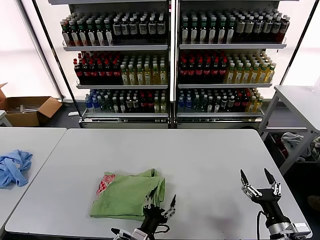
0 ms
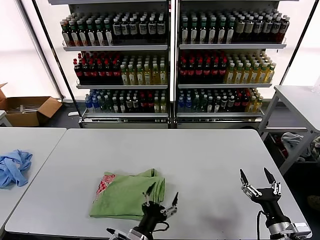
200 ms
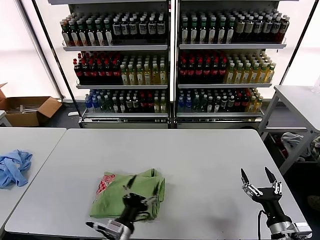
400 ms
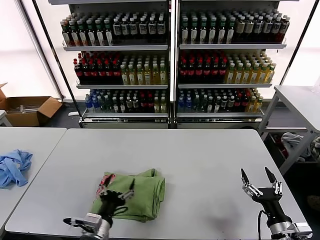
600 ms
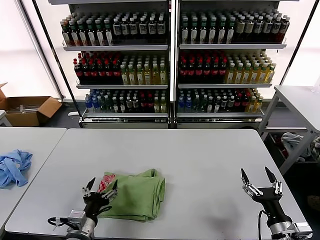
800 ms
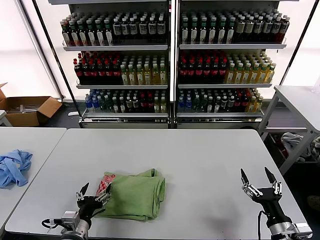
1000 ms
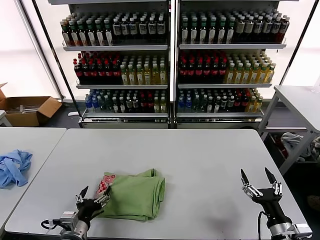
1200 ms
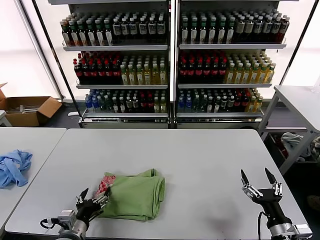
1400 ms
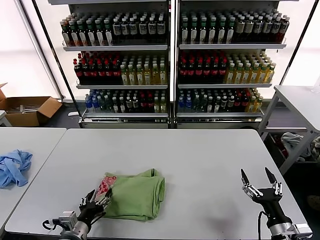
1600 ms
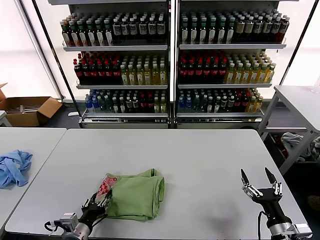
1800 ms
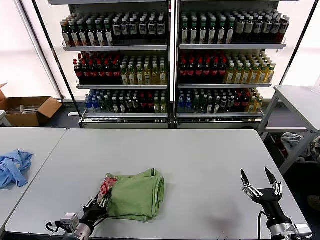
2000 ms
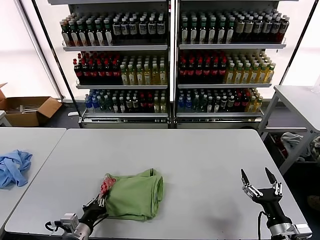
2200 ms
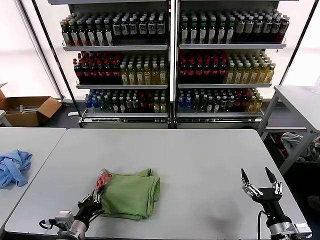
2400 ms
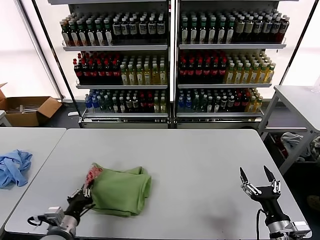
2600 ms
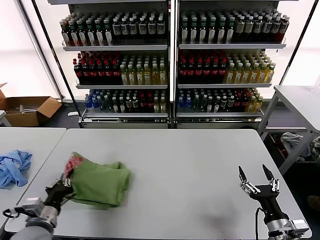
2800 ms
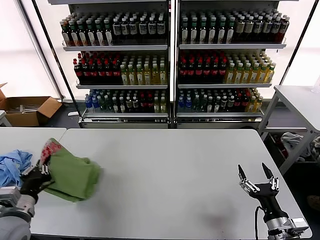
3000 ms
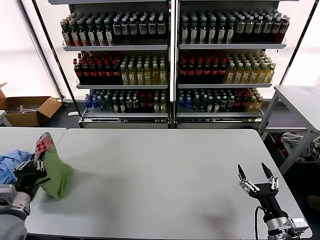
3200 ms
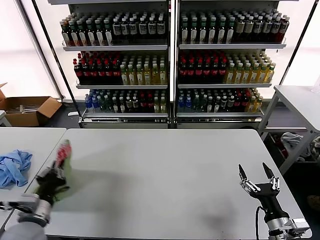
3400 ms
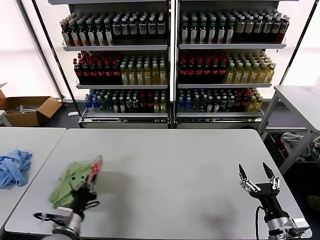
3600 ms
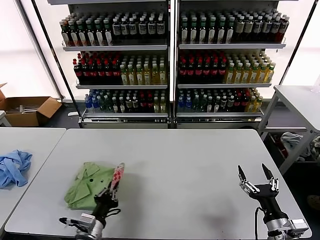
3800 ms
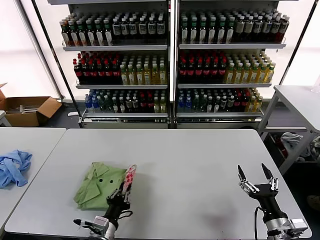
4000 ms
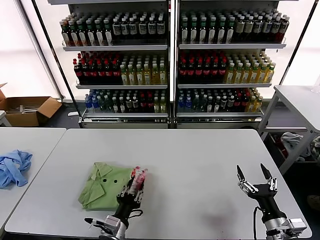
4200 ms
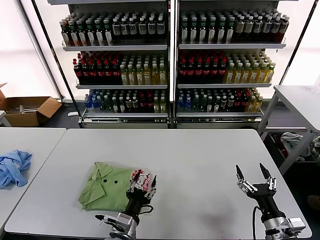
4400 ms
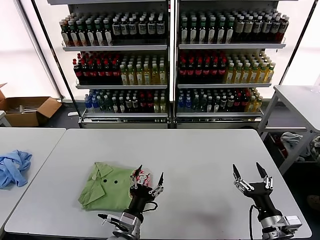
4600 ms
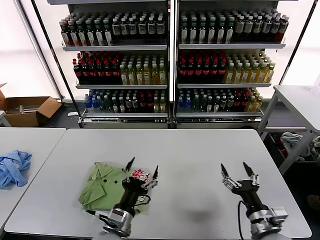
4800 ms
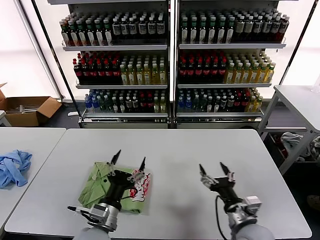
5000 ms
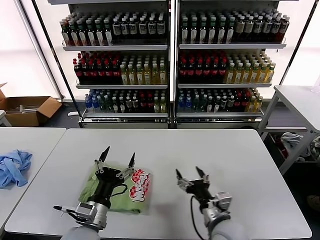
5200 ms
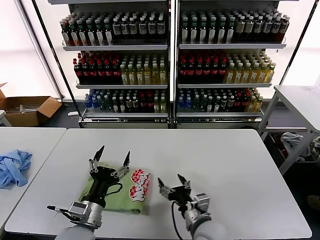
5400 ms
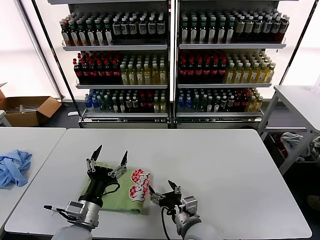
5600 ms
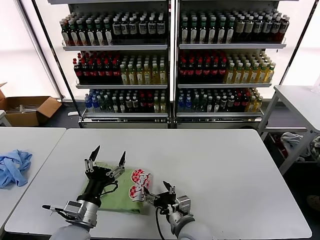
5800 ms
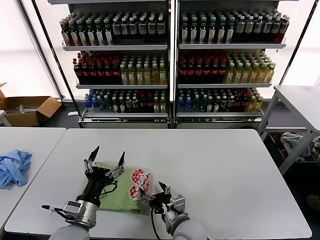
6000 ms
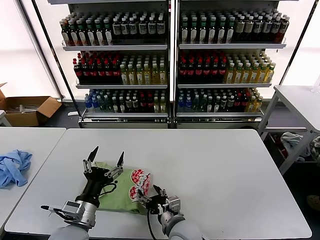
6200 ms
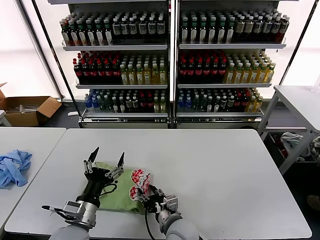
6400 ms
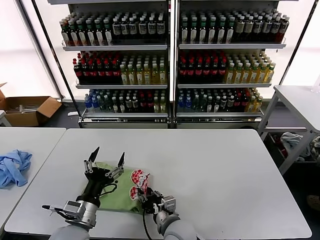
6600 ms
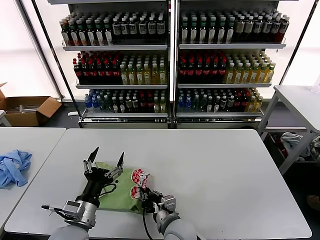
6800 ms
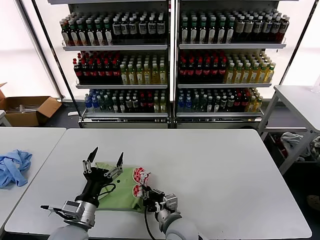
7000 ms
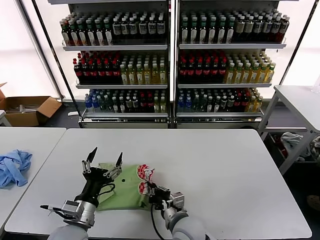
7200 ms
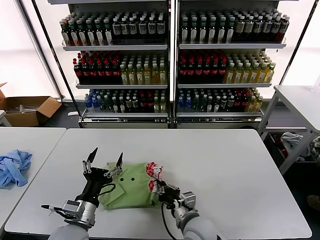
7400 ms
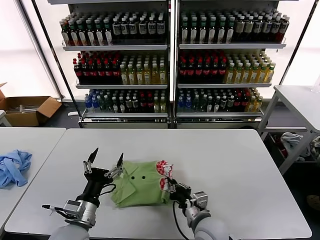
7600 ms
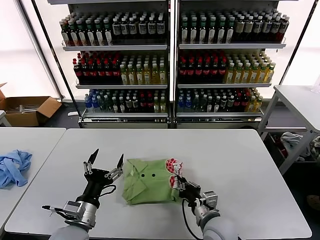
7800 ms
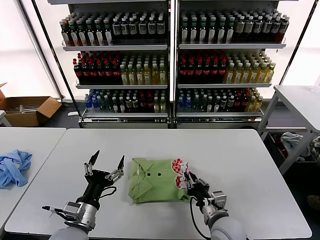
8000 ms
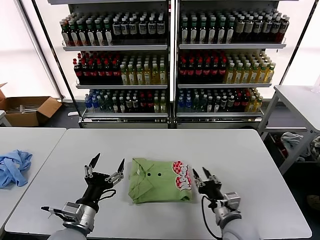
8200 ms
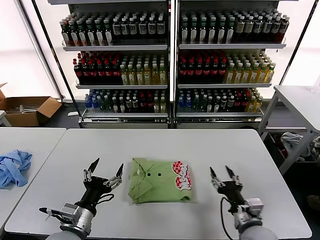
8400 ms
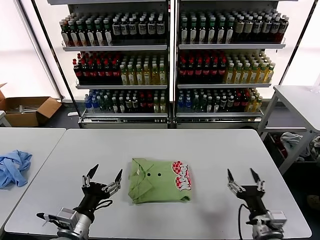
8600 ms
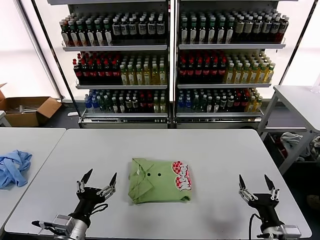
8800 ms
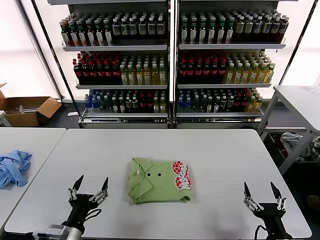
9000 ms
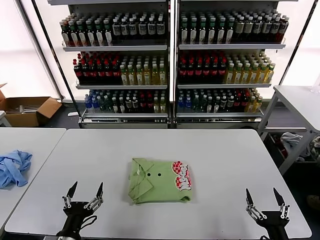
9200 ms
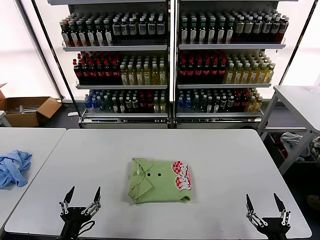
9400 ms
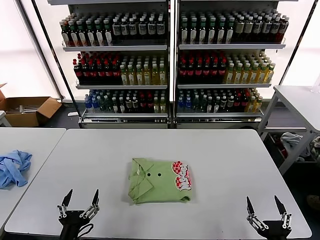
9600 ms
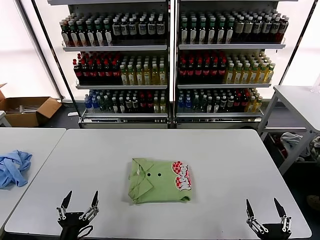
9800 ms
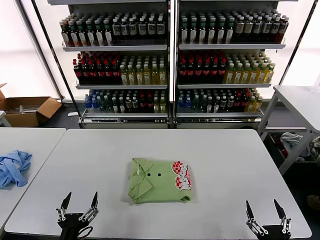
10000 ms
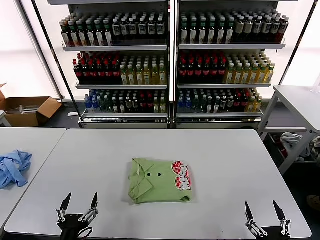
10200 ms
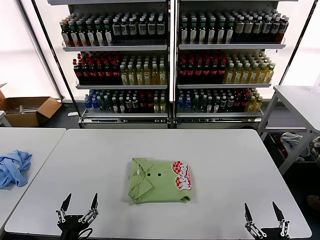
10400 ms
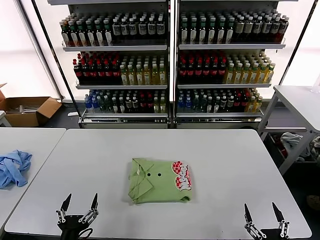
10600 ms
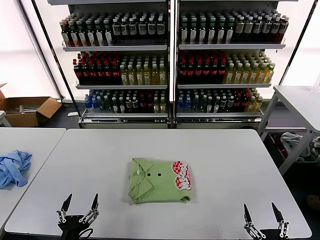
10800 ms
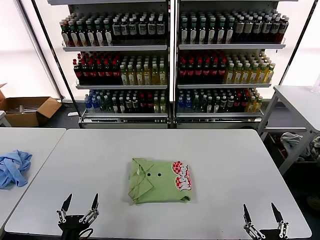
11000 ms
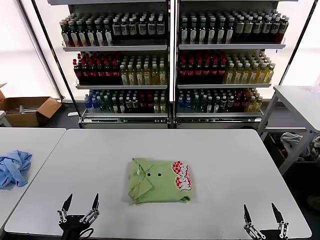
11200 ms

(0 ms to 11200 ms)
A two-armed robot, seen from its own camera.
Task of the whole recording: fold and organize the clothes.
Step, 0 ms - 4200 ms: Flip the folded clothes over with left gripper.
Step, 4400 ms - 8000 ms: Drag the clothes to the center of the table.
0 ms - 1600 ms: The left gripper heads to the left, covering about 20 cm.
1600 ms - 3200 ms: The left gripper goes roughly 15 cm upward and to the left, and closes its fingers.
3200 ms - 4800 ms: The left gripper moves to the right, roughly 25 cm, and opens up.
4800 ms - 6400 ms: The left gripper heads to the left, covering about 10 cm. The right gripper is displaced to the left by approximately 25 cm.
6400 ms - 8000 ms: The right gripper heads to the right, covering approximately 15 cm, and closes its fingers.
8000 ms - 9600 ms: The left gripper moves backward and downward, approximately 10 cm. The right gripper travels backward and to the right by about 25 cm, and opens its fingers.
9600 ms - 11200 ms: The grippers make only small movements.

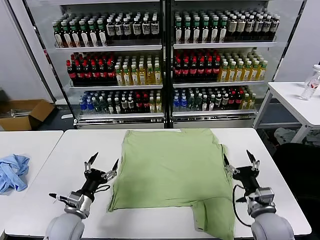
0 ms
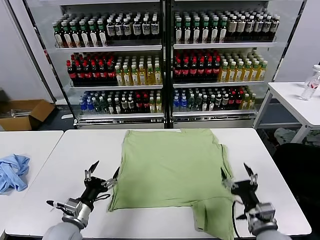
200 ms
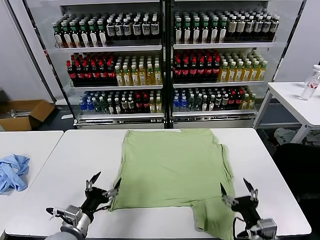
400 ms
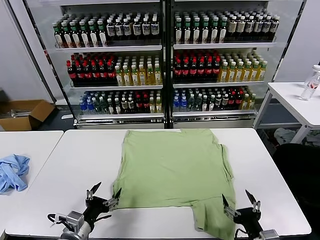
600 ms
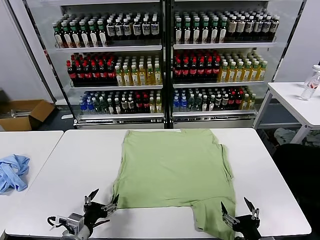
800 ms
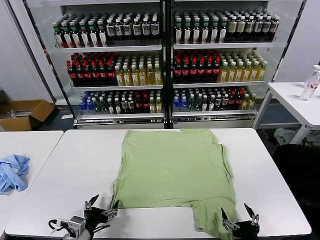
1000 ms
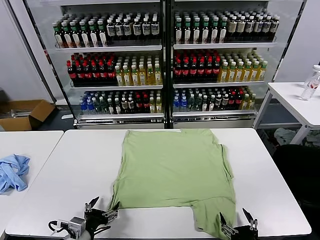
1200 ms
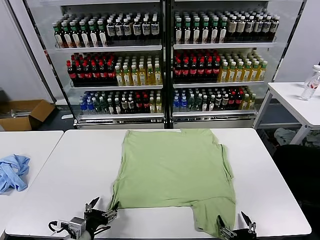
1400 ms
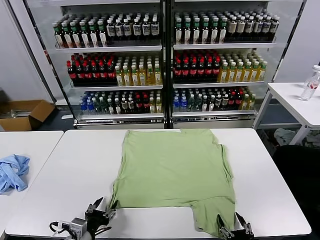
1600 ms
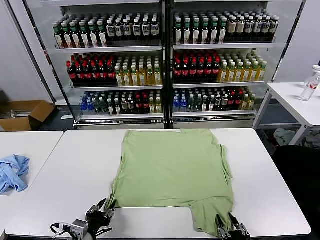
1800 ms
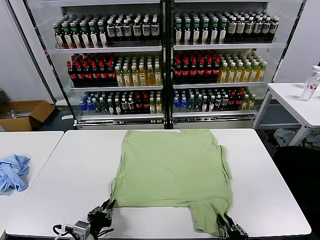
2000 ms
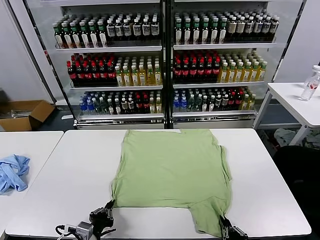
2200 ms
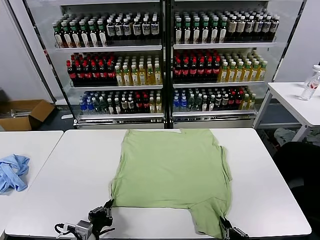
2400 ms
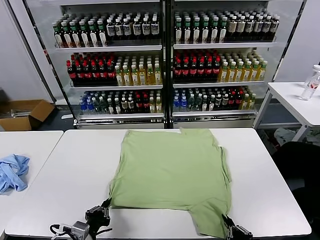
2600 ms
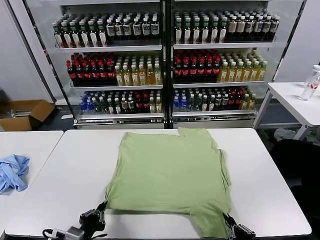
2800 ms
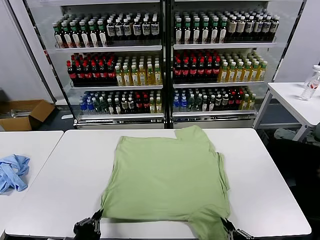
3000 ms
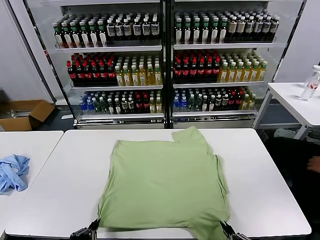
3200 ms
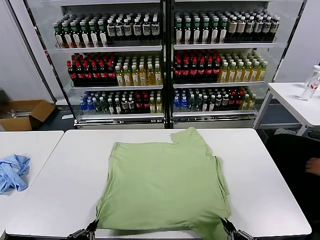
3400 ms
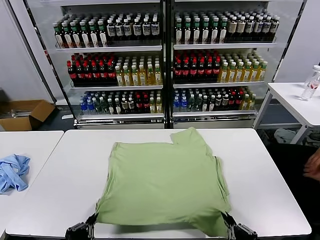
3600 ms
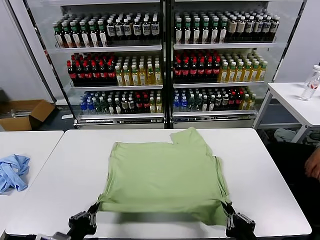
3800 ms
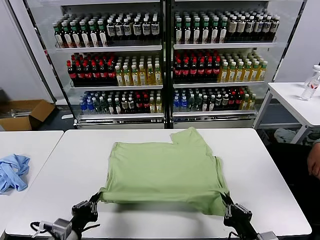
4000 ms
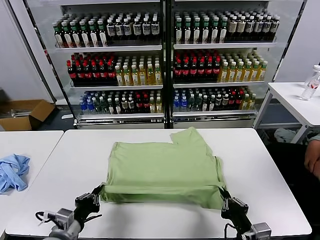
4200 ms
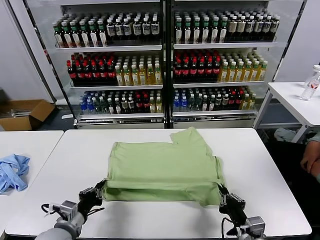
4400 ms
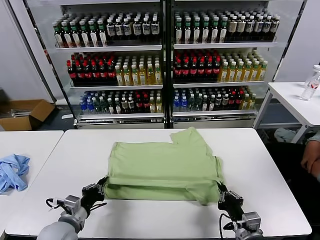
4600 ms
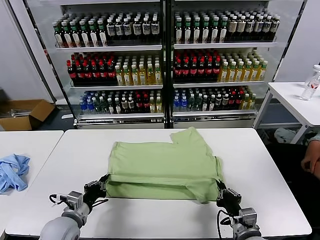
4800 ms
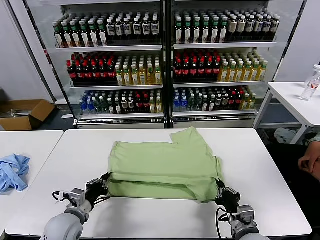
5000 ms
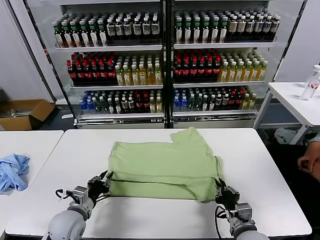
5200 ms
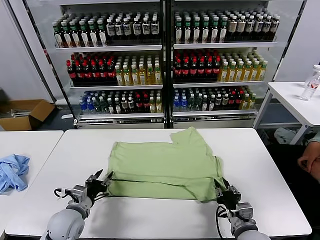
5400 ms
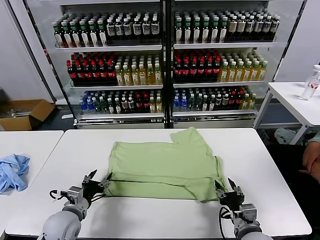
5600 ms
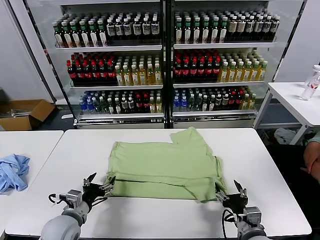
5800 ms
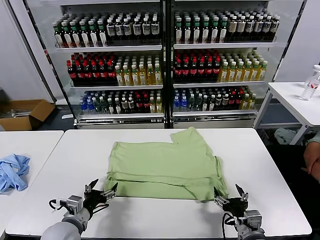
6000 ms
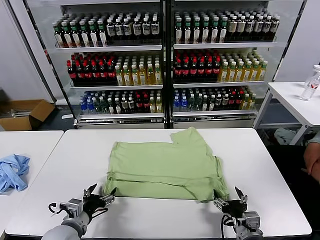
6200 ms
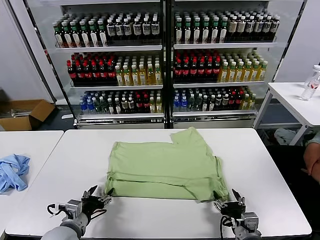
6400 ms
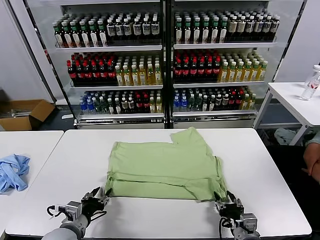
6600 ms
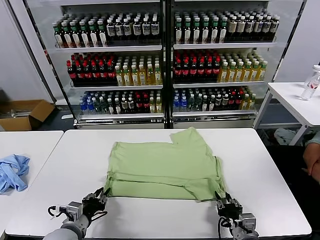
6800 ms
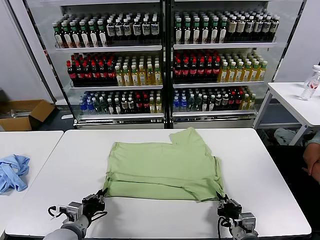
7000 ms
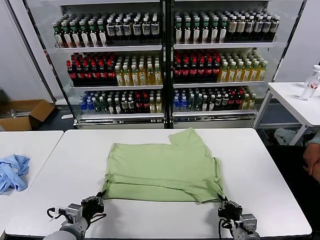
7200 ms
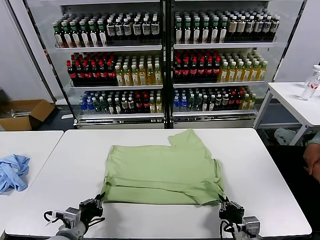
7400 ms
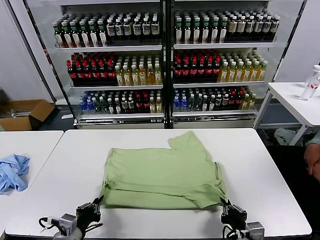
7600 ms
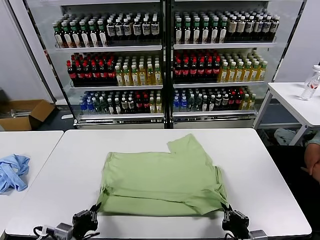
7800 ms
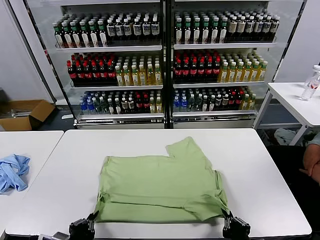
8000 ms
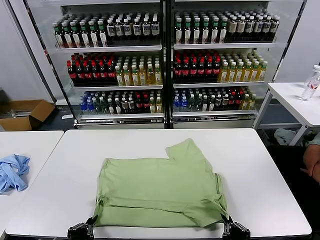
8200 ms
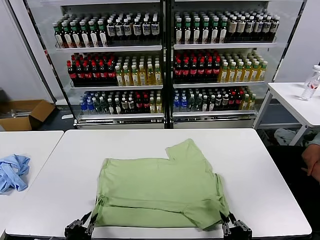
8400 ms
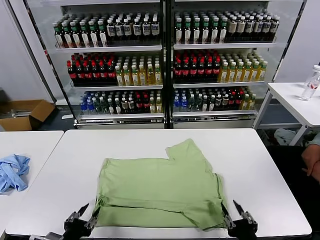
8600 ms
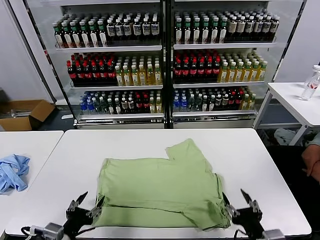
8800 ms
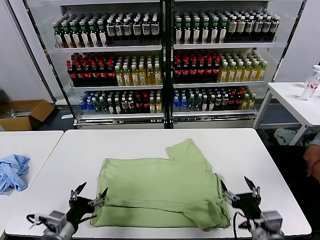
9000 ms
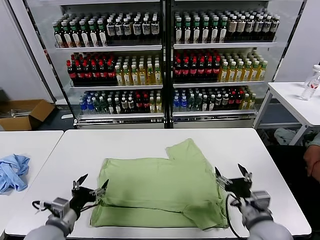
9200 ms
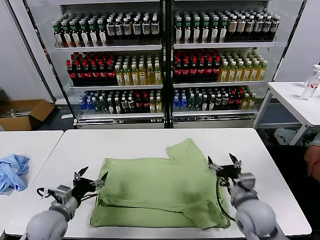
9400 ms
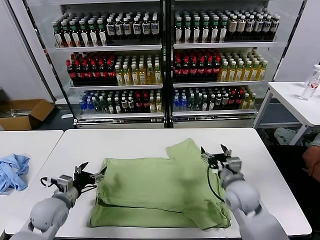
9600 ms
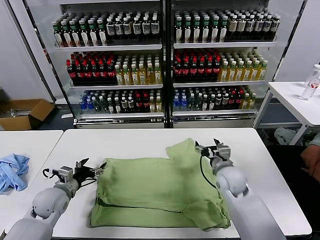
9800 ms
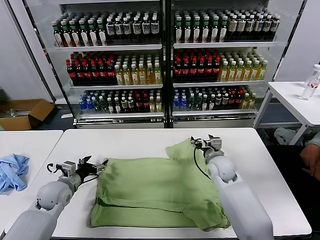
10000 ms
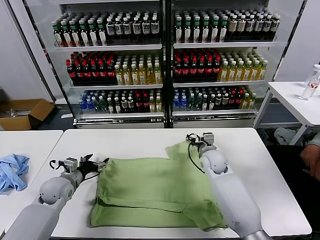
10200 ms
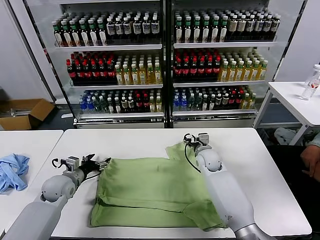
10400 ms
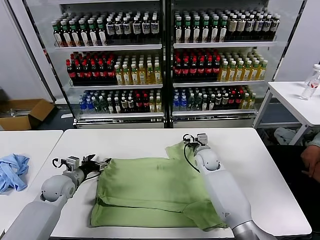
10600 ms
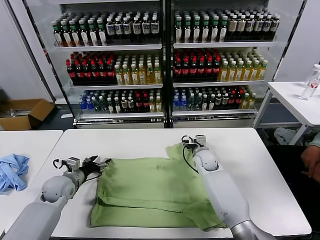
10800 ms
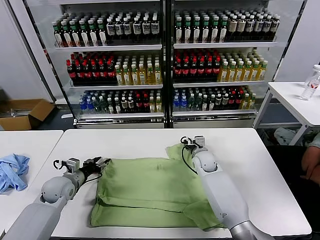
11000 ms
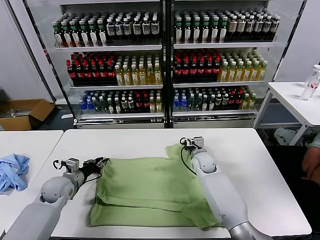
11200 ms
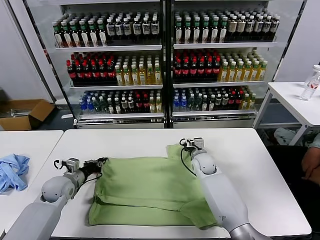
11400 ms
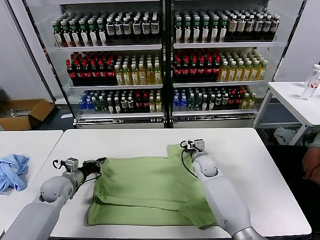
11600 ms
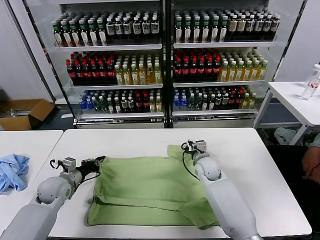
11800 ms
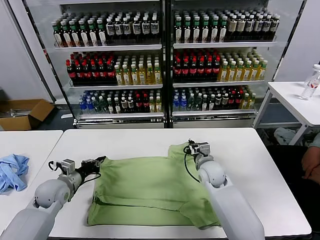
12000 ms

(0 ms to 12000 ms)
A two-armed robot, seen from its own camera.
Task of the whole recording: fold and organize the clothes.
Step, 0 ms - 2200 ms: use both grippers simultaneously to clamp the lower edge of the clothing fabric.
Step, 2400 ms - 5400 ms: use both grippers to drag the lower edge of the fabric forward and fold it over the upper edge.
Step, 5600 ms - 8400 ms: Drag the clothes downward with both gripper.
Step, 8600 ms - 11400 ms: use both grippers simultaneously to clamp the upper edge of the clothing fabric.
1600 ms - 3000 ms: The left gripper travels backward by about 5 cm, and closes its fingers; the right gripper moves upward, about 5 cm, and closes.
3000 ms - 4400 ms: Both grippers move forward, some 10 cm.
4400 ms - 6000 ms: The left gripper opens up, while the right gripper opens up.
6000 ms - 7600 ms: The left gripper heads backward, covering some 5 cm, and closes up, while the right gripper changes place by some 5 cm, and closes.
7600 ms - 9000 ms: The right gripper heads upward and forward, covering approximately 10 cm, and opens; the left gripper opens up.
9000 ms - 10400 ms: The right gripper shifts roughly 30 cm forward; the left gripper is displaced forward by approximately 20 cm.
10400 ms - 12000 ms: The left gripper closes, while the right gripper travels backward by roughly 10 cm, and closes its fingers.
